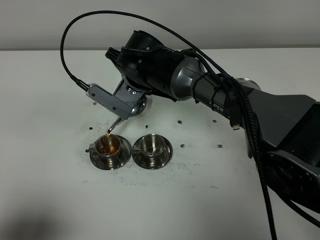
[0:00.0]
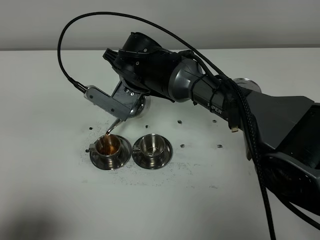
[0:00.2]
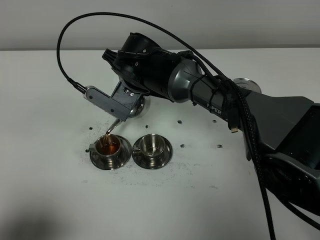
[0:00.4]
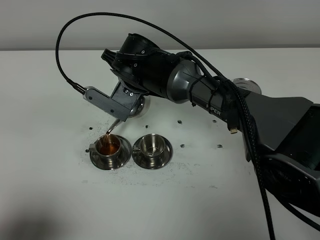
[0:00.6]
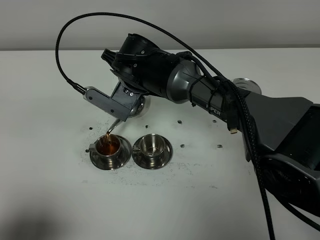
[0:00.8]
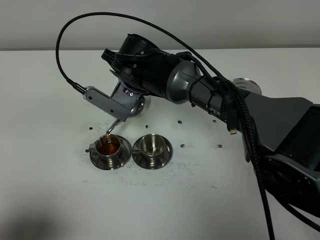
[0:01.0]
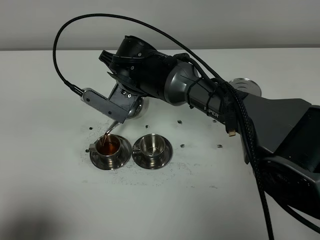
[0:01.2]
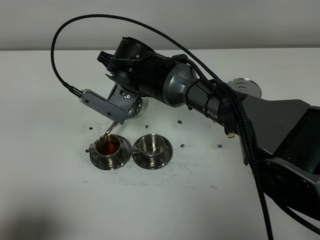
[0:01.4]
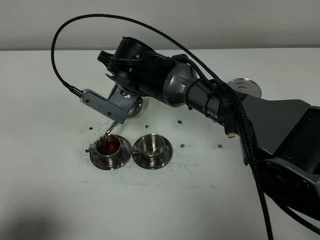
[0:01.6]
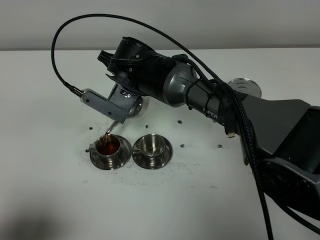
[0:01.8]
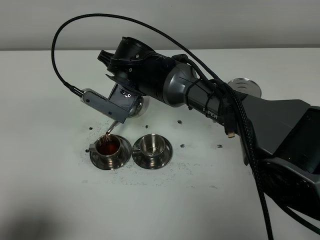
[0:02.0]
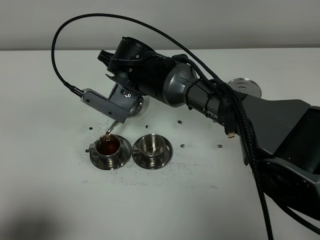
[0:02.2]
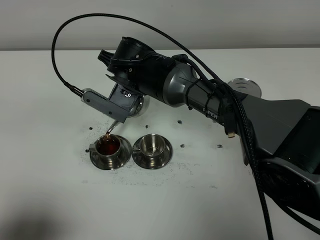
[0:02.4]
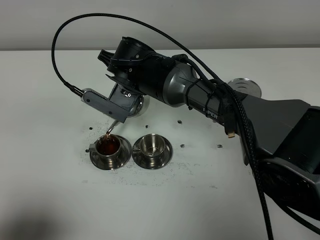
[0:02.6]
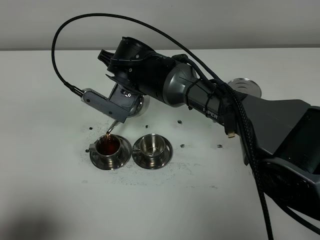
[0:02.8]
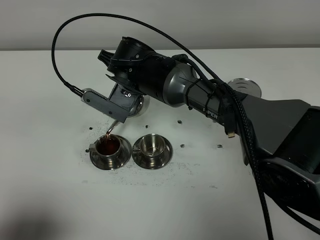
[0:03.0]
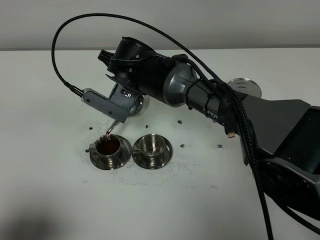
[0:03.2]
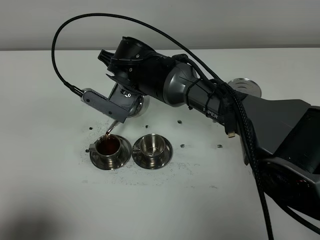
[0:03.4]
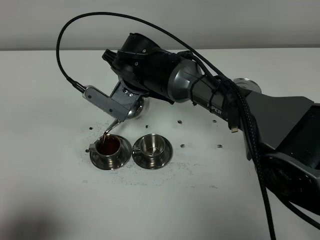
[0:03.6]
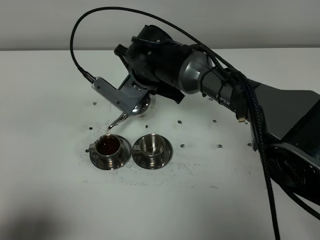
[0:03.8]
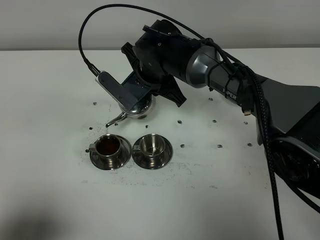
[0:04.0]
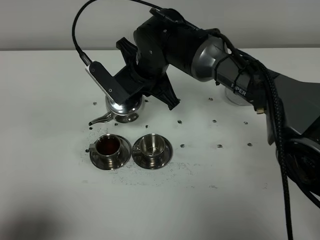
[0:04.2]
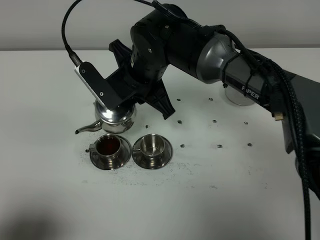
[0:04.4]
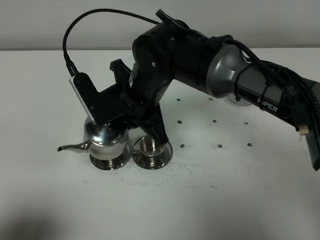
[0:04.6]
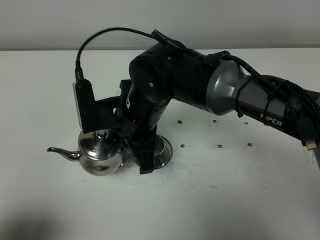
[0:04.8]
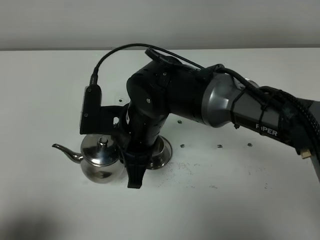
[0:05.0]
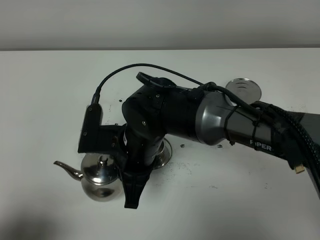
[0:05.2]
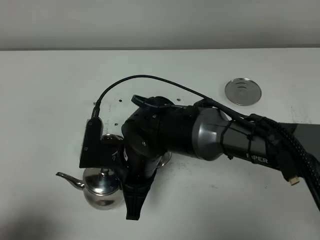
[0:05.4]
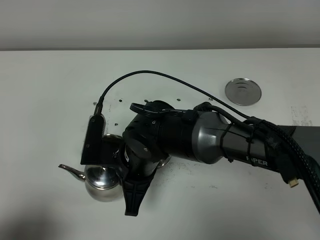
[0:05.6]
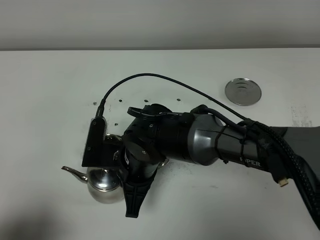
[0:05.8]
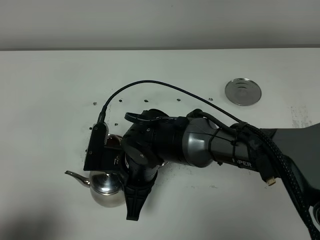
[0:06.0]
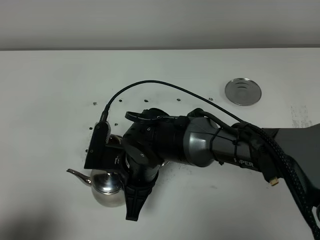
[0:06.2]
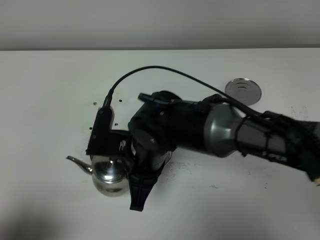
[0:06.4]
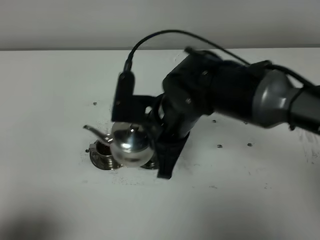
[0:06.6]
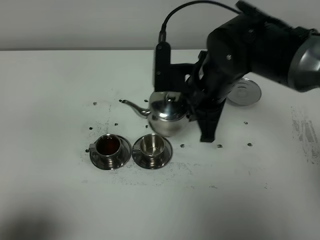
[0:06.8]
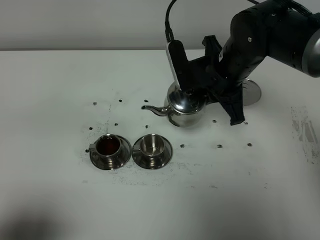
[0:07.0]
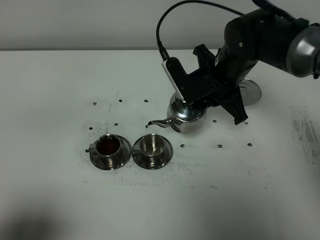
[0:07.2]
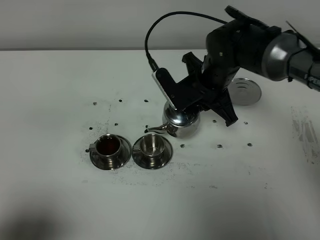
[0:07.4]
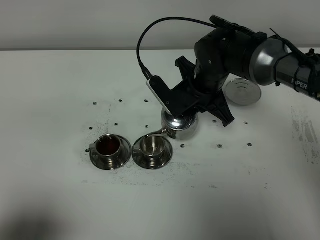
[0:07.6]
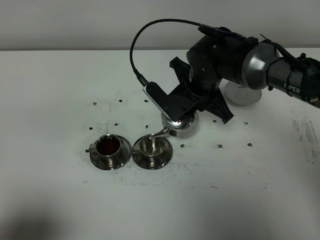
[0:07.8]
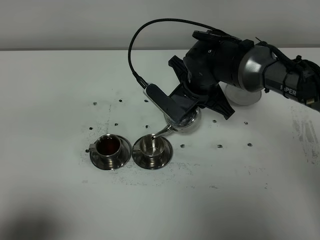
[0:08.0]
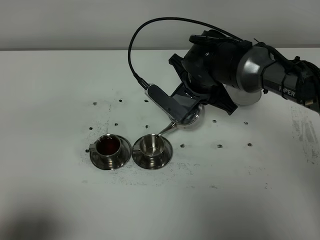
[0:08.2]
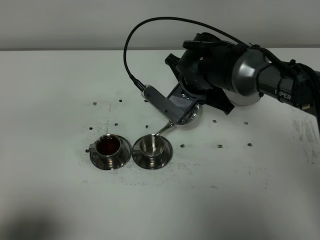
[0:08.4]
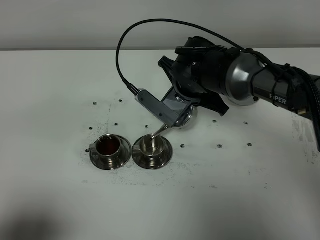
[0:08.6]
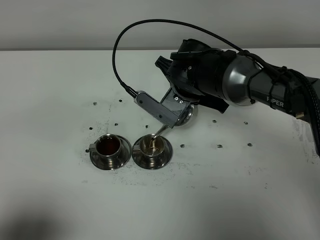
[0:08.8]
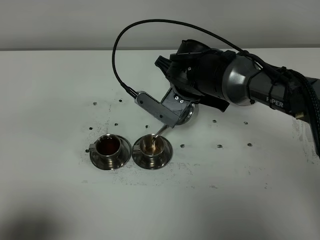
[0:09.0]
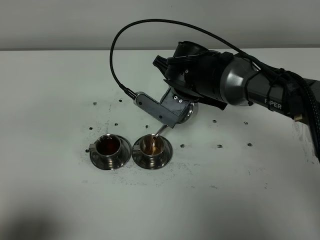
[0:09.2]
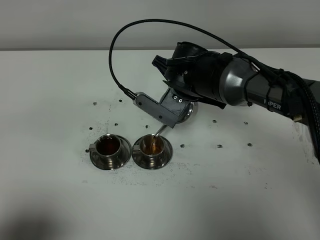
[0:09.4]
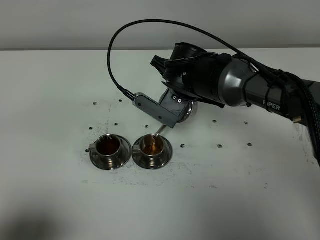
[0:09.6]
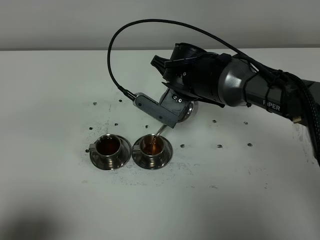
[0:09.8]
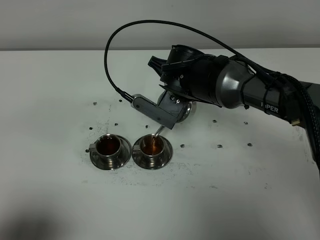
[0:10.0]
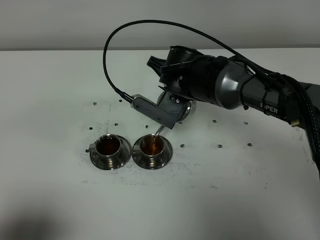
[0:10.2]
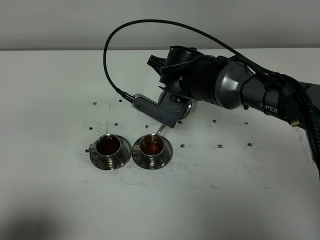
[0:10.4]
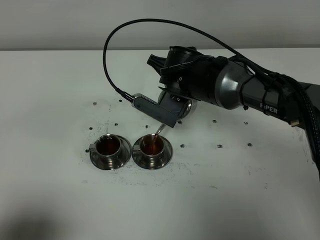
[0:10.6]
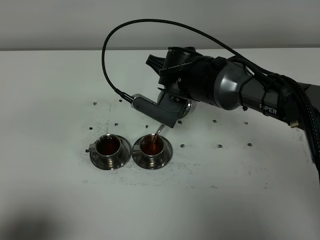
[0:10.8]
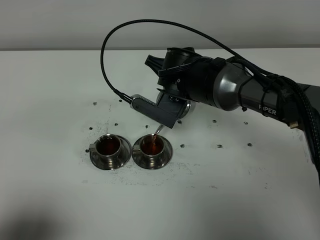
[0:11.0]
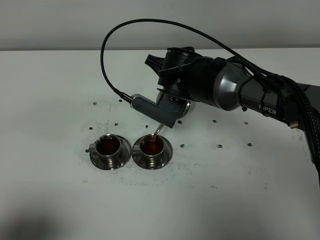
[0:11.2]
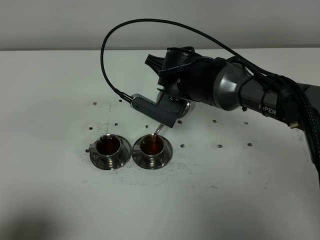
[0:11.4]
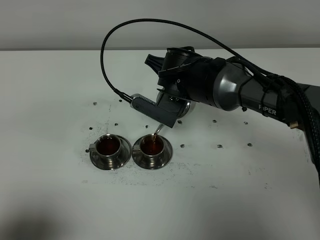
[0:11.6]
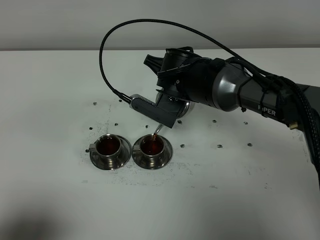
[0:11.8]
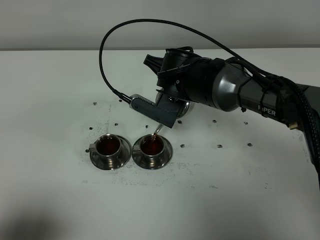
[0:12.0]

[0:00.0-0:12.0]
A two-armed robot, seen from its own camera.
Task of the whole recording: grasp the stainless steel teapot and pour the tea into the two stainless steel teacups one by one, put the stainless steel teapot back in its original place.
0:00.0 to 0:01.6: The grippers make only small movements.
0:01.6 to 0:03.0: Neither gripper changes place.
0:03.0 to 0:04.4: The right gripper shifts by some 5 cm.
0:04.4 to 0:06.0: The right gripper heads backward and downward, covering roughly 15 cm.
0:06.0 to 0:07.6: The right gripper travels forward and to the right by approximately 20 cm.
0:09.0 to 0:10.4: The grippers stay close to where they were, moving slightly.
0:10.4 to 0:12.0: The two grippers keep their place.

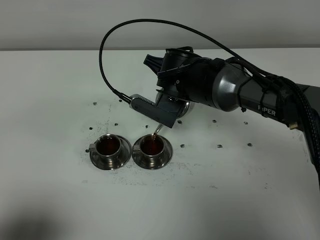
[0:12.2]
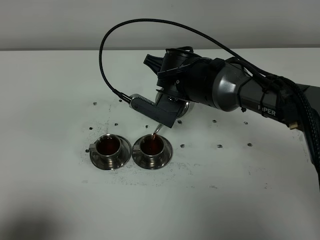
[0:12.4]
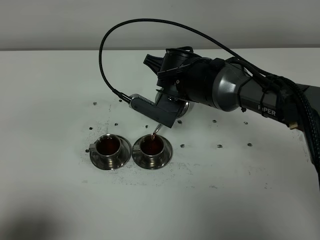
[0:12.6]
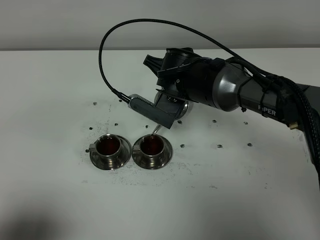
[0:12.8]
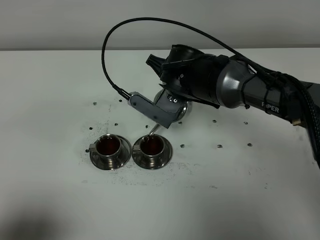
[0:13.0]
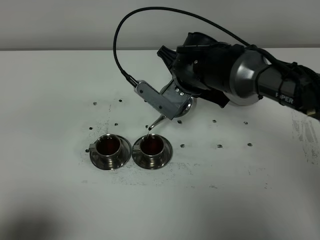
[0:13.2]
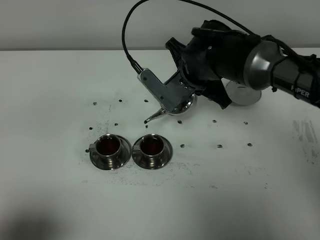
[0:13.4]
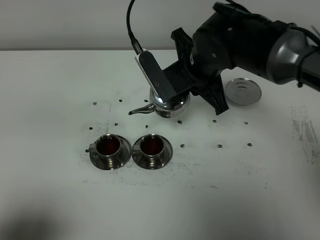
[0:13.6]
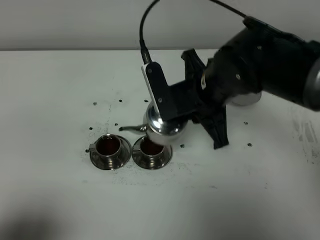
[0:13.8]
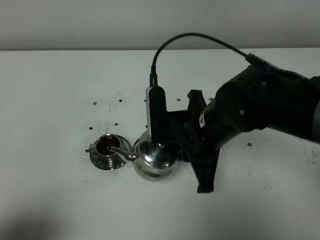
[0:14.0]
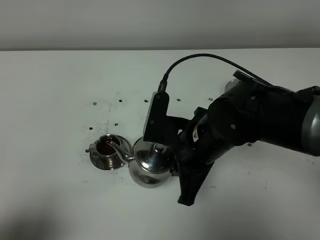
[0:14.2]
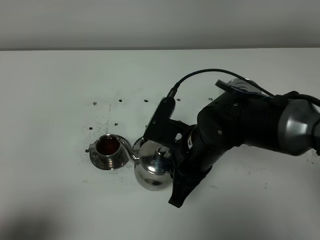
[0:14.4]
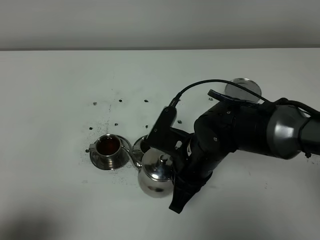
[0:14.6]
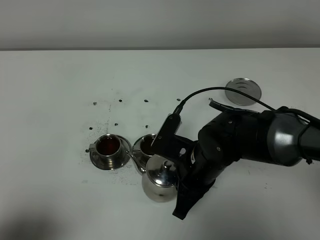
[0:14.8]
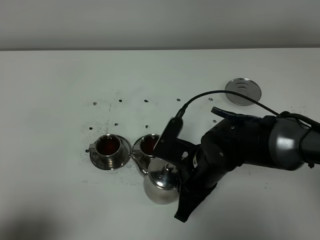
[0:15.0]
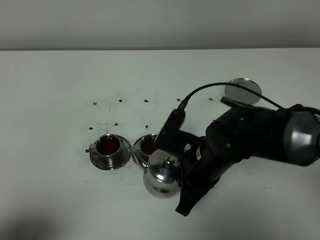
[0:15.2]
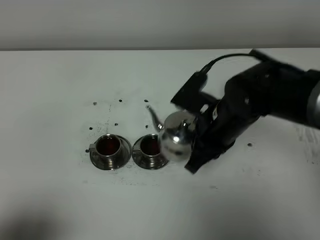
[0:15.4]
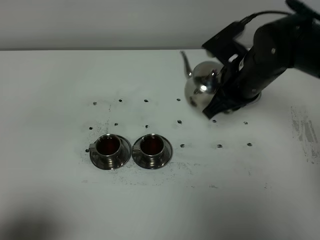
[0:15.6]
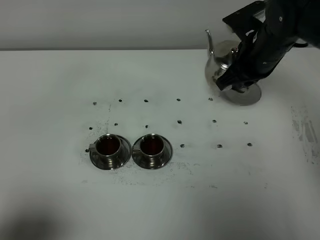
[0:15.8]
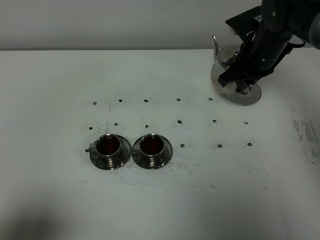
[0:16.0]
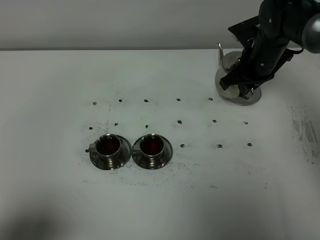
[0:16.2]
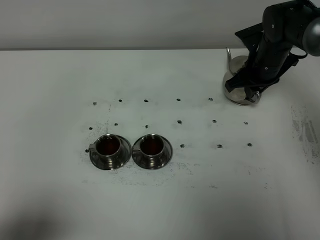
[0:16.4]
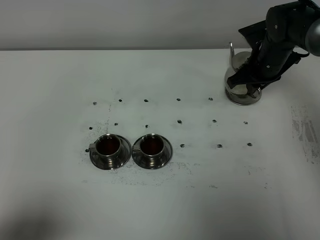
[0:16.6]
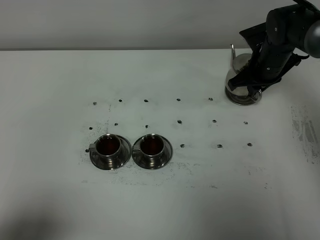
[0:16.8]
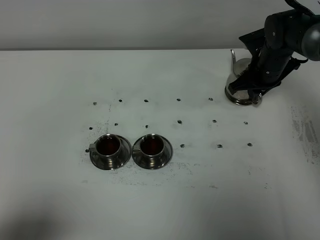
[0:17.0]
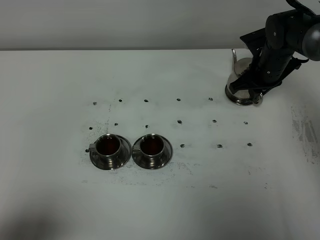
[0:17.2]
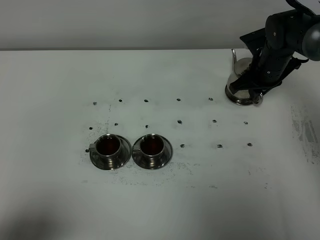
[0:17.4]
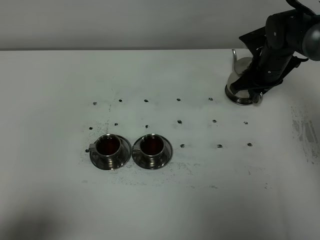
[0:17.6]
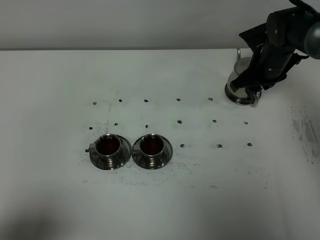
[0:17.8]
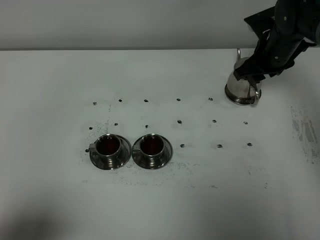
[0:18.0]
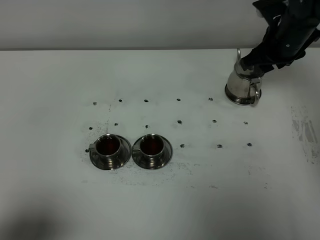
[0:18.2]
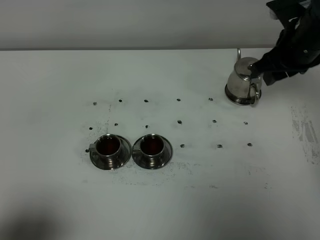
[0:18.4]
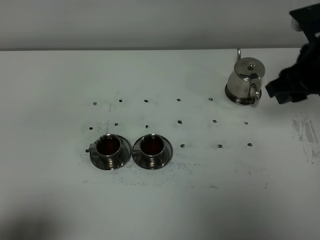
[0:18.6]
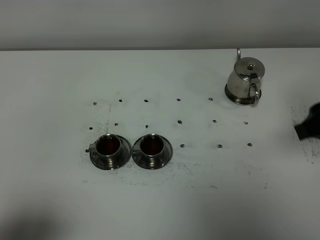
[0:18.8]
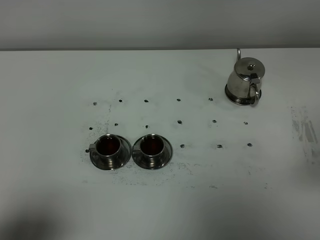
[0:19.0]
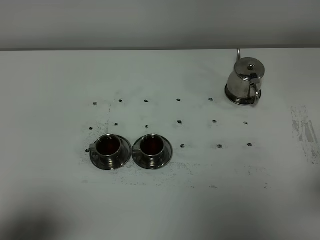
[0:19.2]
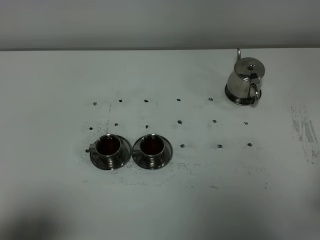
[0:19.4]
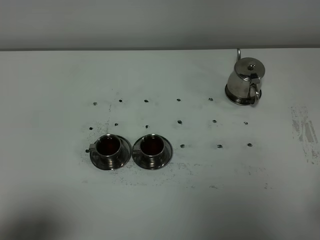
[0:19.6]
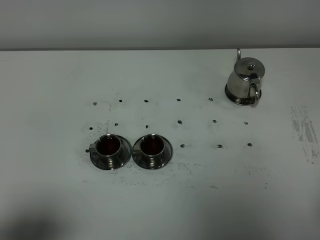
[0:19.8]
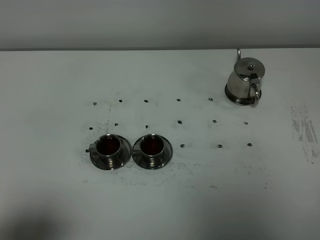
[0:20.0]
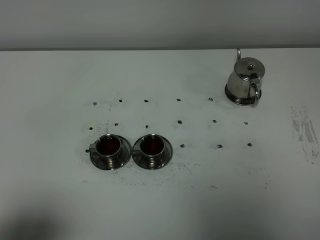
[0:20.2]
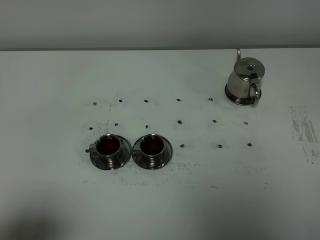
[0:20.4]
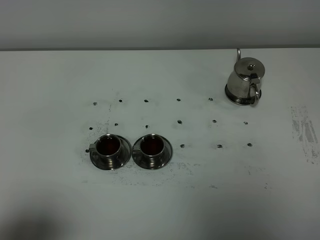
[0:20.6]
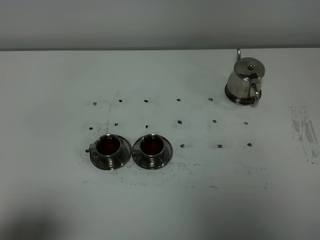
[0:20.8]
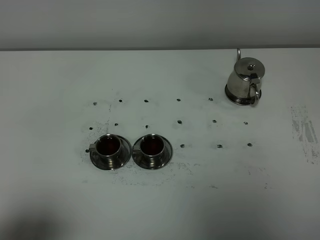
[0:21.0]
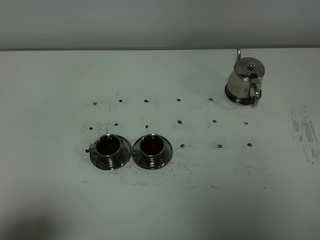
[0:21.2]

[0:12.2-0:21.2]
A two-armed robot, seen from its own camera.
Task of the whole recording: grasp the stainless steel teapot and pour the tea into the two stainless steel teacups one by one, put the stainless steel teapot back in its original place.
0:12.2 to 0:13.8: The right gripper goes about 10 cm backward.
0:13.8 to 0:15.2: The right gripper shifts approximately 10 cm downward and backward.
0:15.2 to 0:16.6: The right gripper moves forward and to the right, about 25 cm.
0:16.6 to 0:18.2: The right gripper moves upward, roughly 5 cm, and opens its fingers.
0:18.2 to 0:19.8: The right gripper moves backward, approximately 40 cm, and closes.
